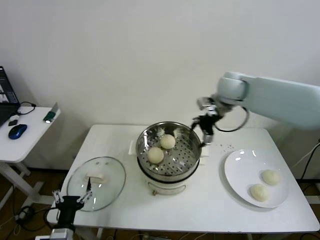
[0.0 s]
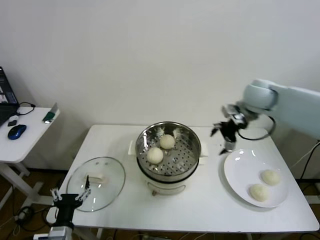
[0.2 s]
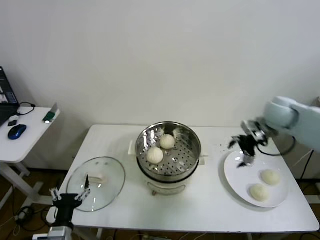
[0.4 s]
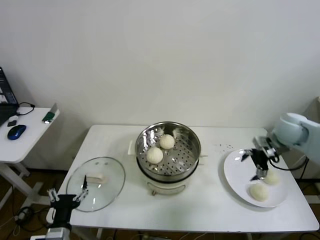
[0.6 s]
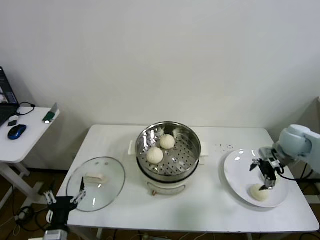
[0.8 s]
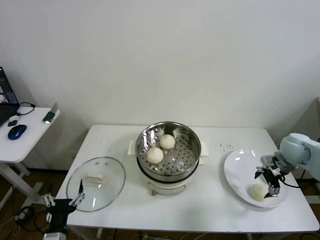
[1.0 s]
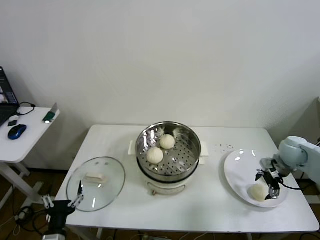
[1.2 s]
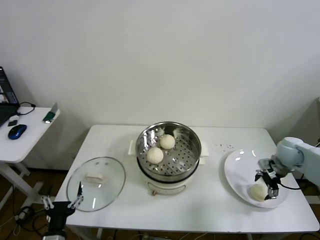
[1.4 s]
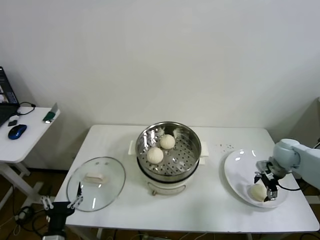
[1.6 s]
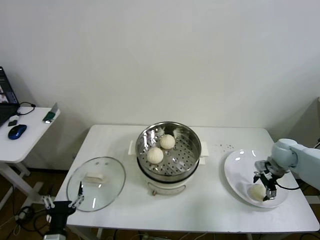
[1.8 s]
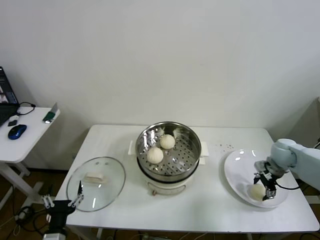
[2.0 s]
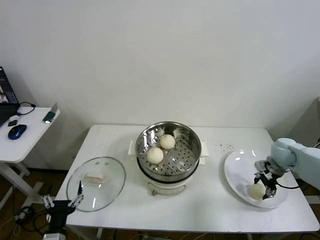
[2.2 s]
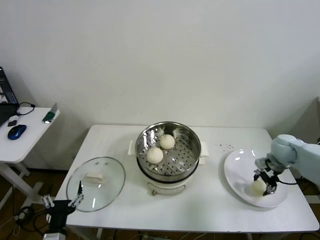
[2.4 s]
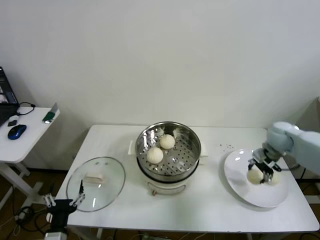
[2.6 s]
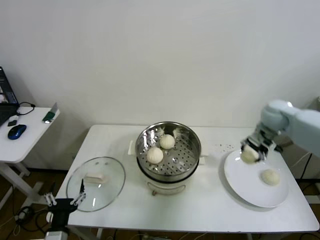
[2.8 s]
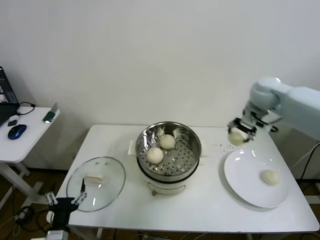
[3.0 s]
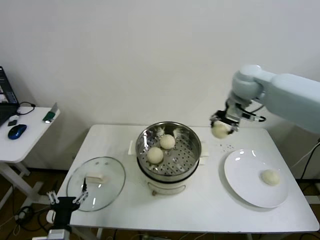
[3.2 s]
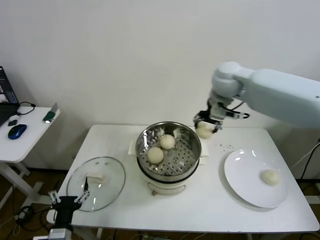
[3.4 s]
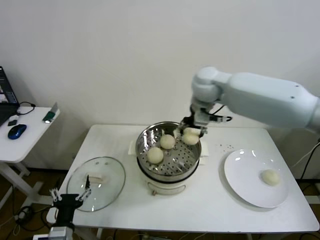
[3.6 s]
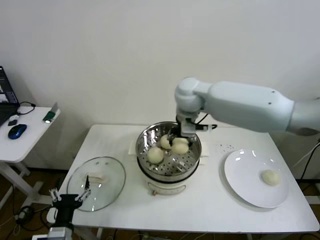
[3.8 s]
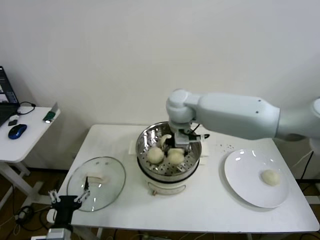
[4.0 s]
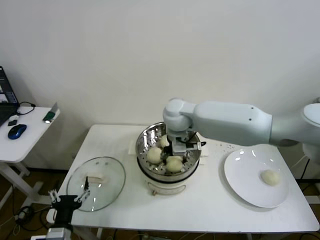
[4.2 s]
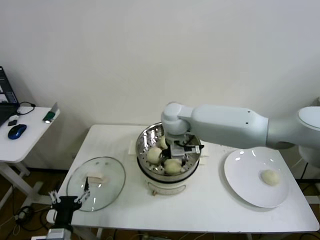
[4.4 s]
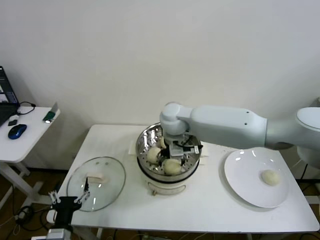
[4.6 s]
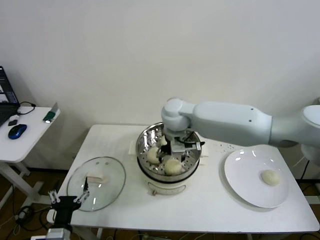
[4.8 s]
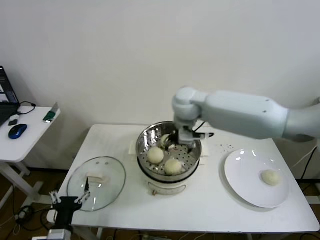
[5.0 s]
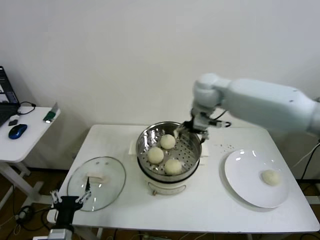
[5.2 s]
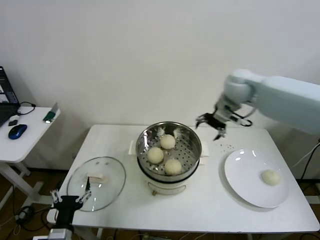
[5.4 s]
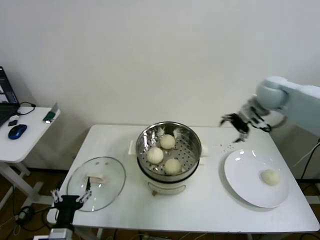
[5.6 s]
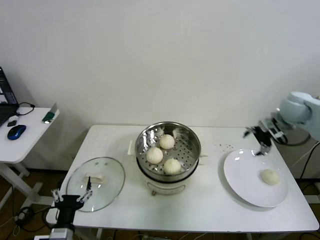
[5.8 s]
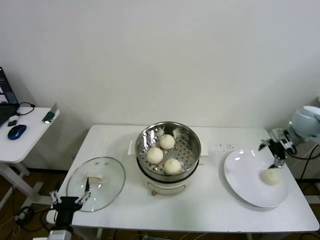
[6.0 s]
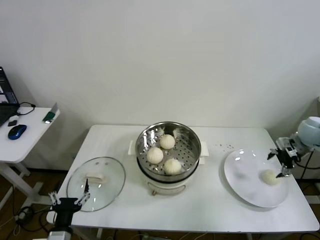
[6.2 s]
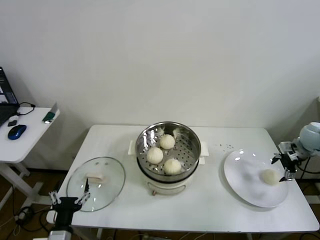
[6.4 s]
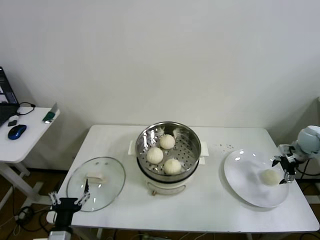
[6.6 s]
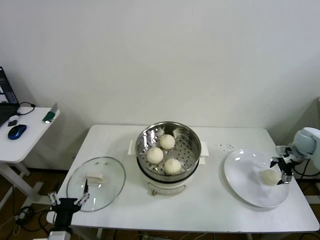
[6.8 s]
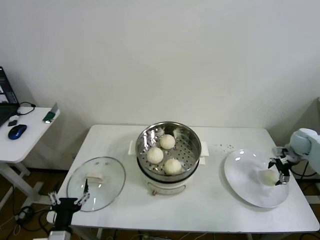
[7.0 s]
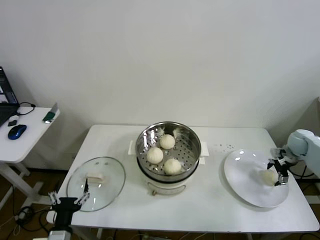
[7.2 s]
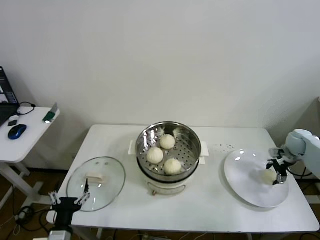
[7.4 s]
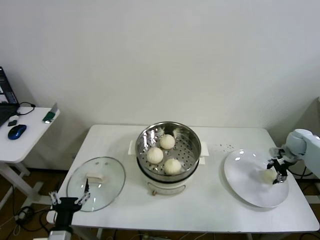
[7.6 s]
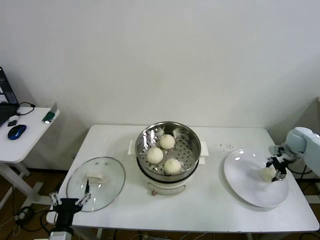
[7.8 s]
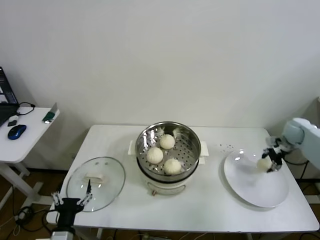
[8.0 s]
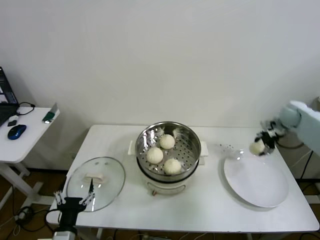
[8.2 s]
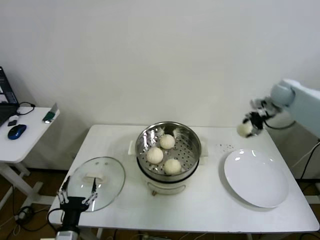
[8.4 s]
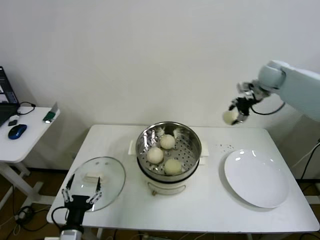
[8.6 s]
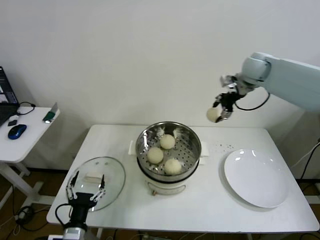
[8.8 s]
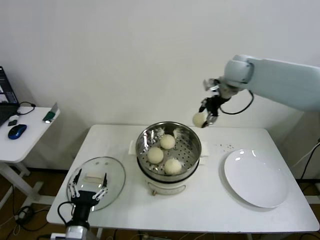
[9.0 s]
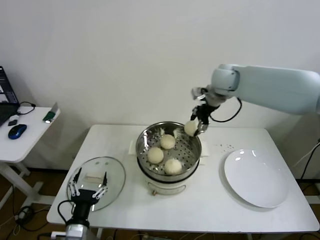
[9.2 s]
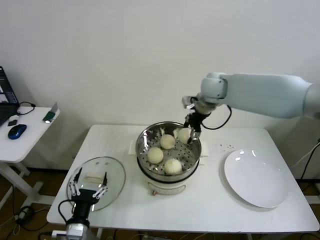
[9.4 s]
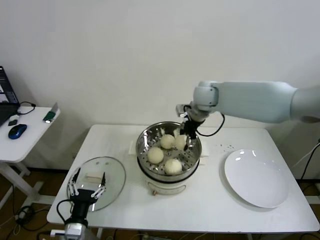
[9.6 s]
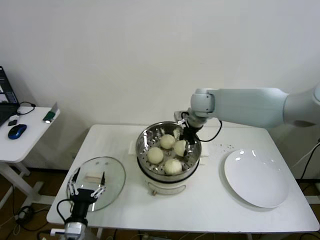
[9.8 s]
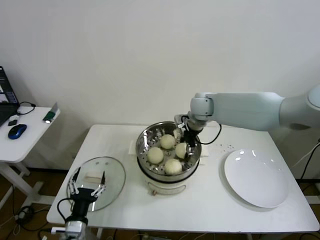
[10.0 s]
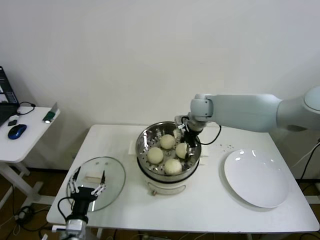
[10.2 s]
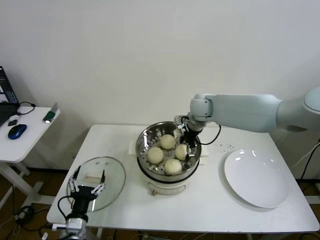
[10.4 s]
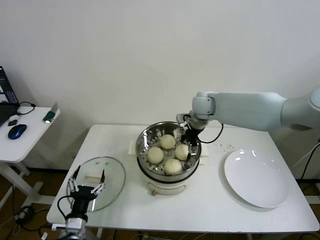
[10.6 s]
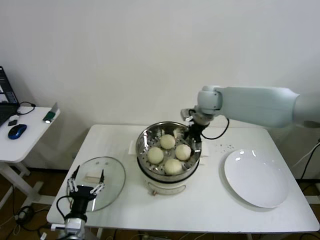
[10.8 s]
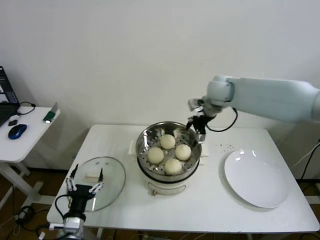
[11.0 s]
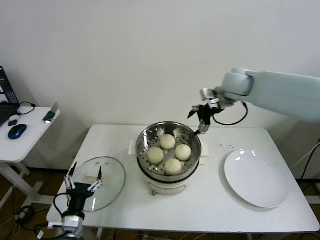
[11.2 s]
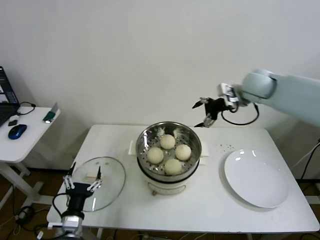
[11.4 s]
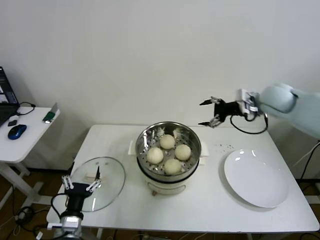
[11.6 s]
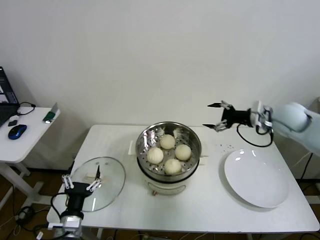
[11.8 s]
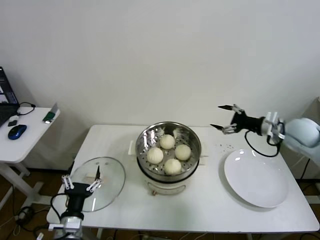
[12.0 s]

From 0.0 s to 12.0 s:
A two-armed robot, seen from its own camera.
Step, from 0.0 s to 2.2 s: Grasp the baozi in the plate with right gripper.
Step, from 2.4 s to 4.8 s: Place the baozi on the steamer with right gripper.
Step, from 5.2 s to 7.4 s: Grasp the baozi in the plate with right gripper.
Step, from 7.8 s to 10.6 s: Place the baozi on the steamer with right gripper.
From 0.0 s to 1.6 s: The right gripper travels downward, to the right and backward by approximately 30 cm.
From 1.6 s to 3.0 s: The right gripper heads upward, to the left and forward, covering about 25 cm, and closes up.
From 3.0 s to 4.4 s: The right gripper is displaced to the left by about 25 cm, and opens its fingers.
From 4.4 s to 6.0 s: The right gripper is displaced to the right by some 40 cm.
From 6.0 s to 7.6 s: The right gripper travels downward and to the right by approximately 15 cm, and closes its fingers.
From 7.6 s to 9.0 s: The right gripper moves to the left and upward, approximately 40 cm.
From 9.0 s to 10.4 s: The right gripper is displaced downward and to the left by about 15 cm, and opens its fingers.
From 10.4 s to 12.0 s: The right gripper goes about 30 cm to the right and backward.

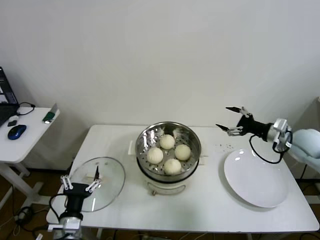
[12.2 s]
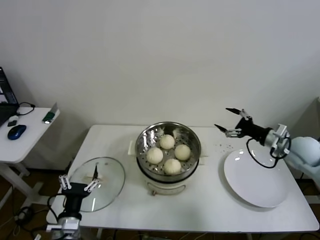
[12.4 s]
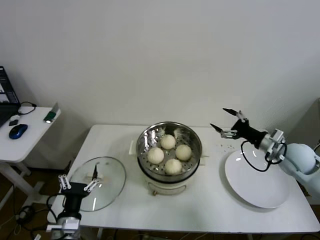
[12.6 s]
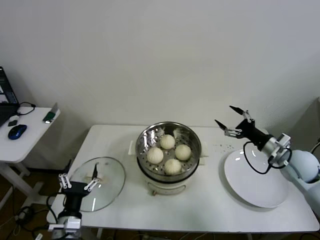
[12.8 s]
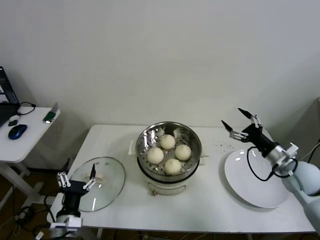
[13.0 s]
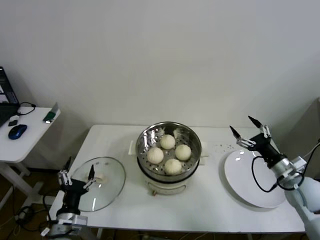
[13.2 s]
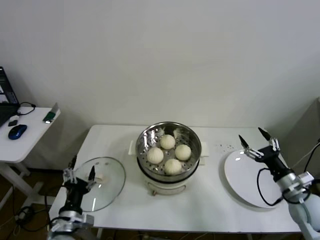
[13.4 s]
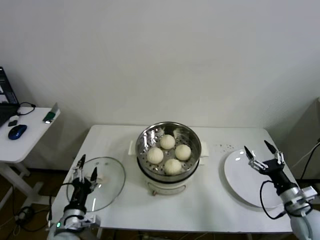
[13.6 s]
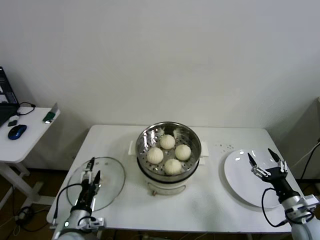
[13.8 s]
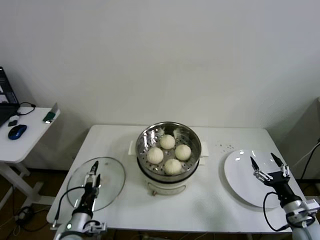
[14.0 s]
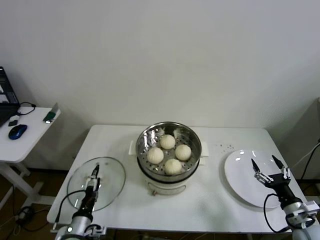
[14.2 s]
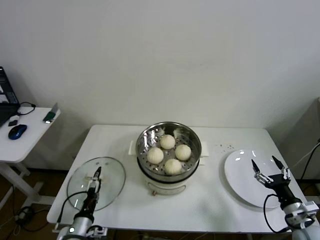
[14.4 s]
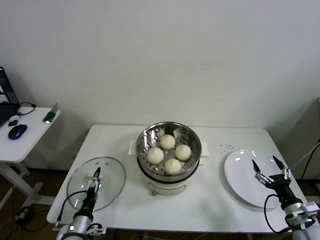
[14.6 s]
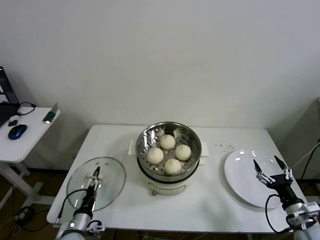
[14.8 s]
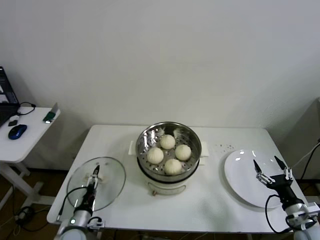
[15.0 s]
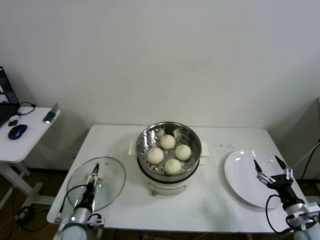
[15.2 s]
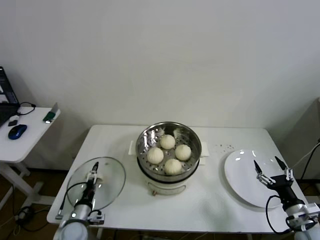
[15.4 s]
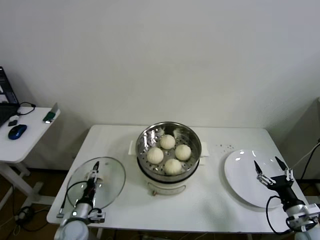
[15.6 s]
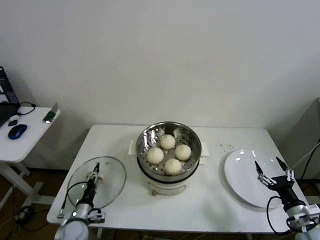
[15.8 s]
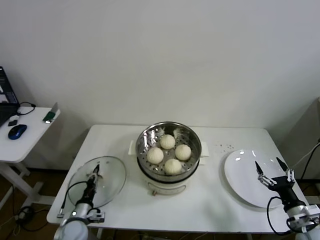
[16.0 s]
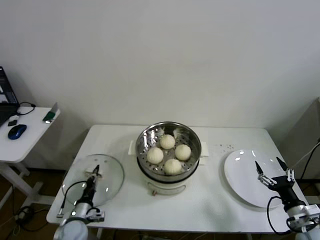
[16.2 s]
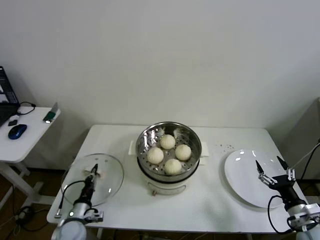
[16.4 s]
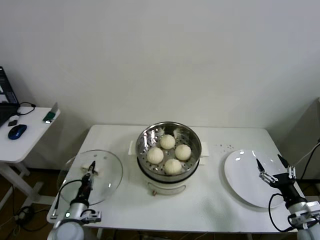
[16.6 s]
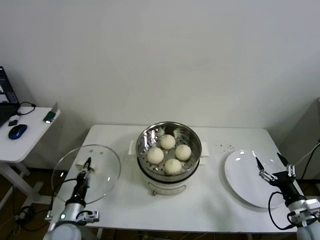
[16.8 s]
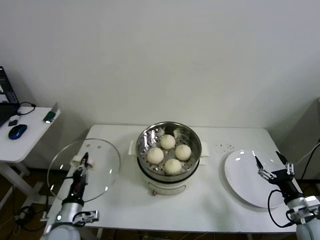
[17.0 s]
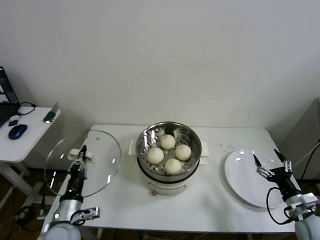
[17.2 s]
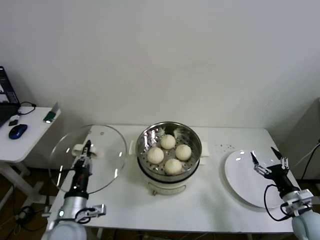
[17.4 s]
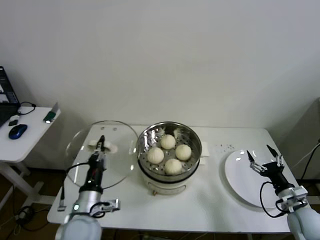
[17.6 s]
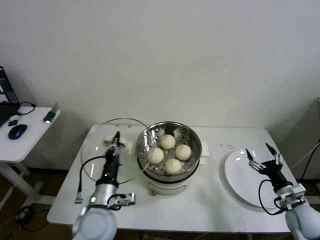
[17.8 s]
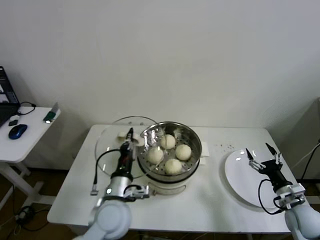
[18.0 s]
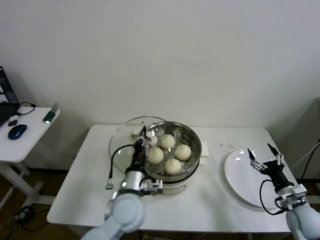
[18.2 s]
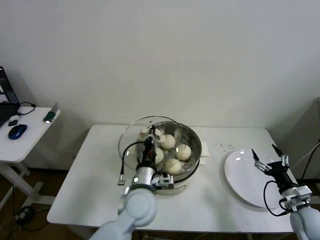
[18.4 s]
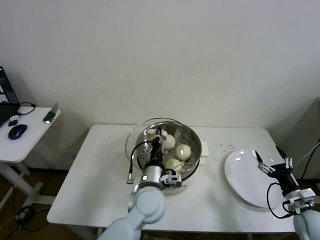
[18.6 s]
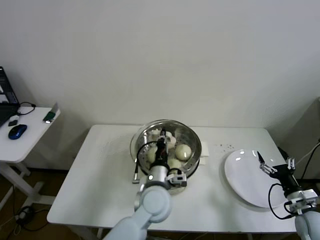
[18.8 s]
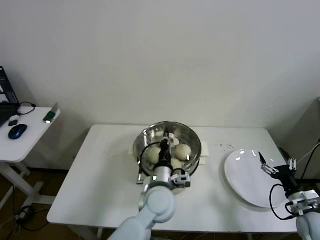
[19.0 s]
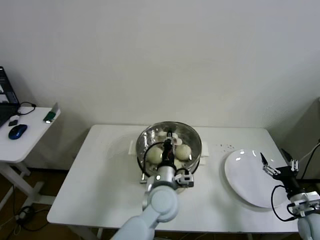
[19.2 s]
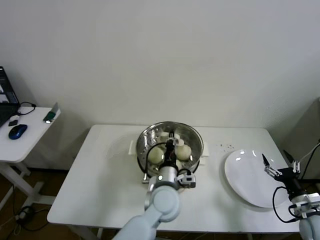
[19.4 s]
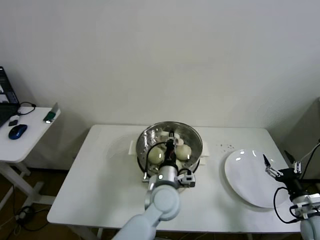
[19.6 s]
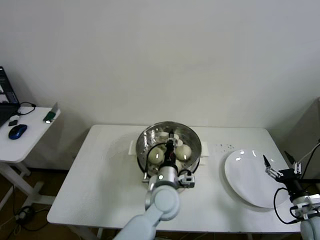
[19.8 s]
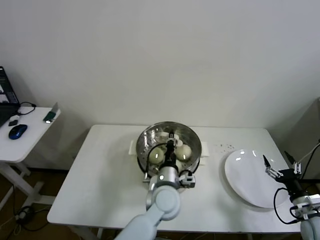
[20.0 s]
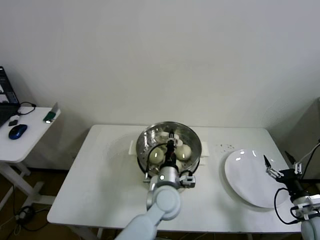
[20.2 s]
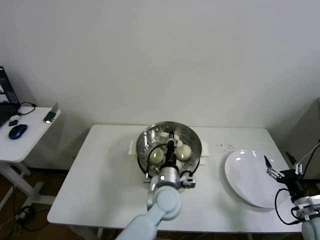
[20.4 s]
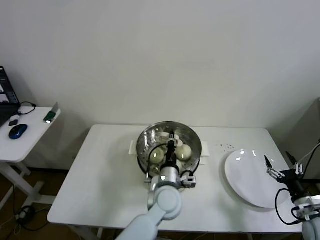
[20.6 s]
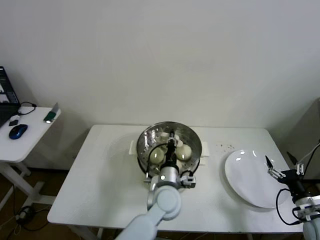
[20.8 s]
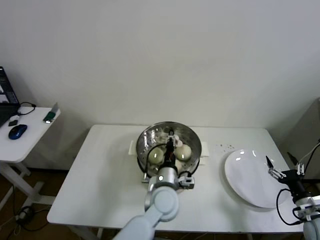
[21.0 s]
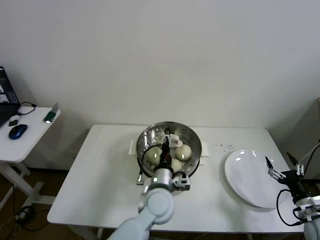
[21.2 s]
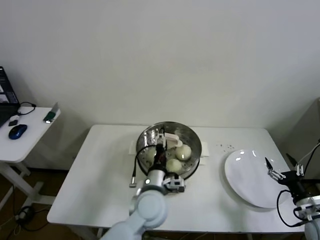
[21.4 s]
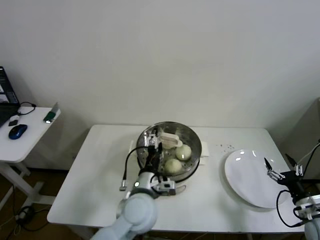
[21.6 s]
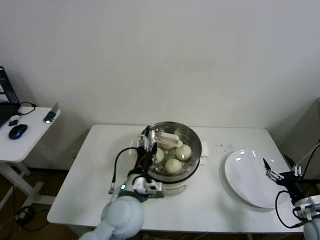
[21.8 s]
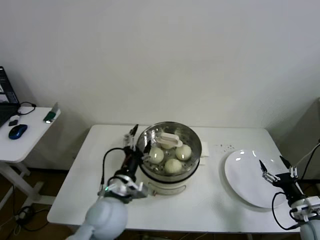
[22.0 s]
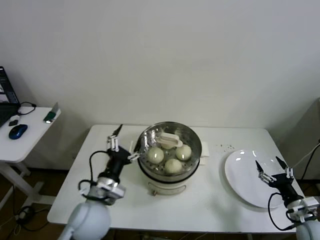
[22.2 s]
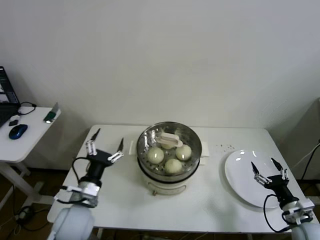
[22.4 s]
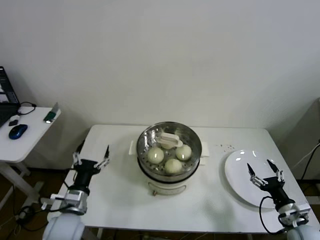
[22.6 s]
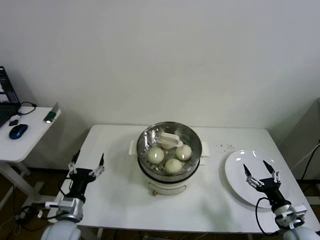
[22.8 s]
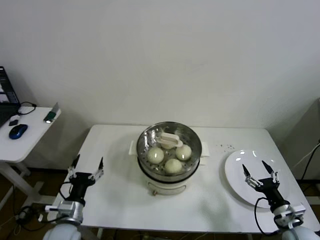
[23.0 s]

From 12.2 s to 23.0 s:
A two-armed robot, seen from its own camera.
Step, from 12.2 s to 16.2 s: Grasp the pot lid with left gripper.
Step, from 16.4 s to 21.4 s: Place the pot lid on the steamer with left gripper.
From 12.2 s to 13.8 s: The right gripper is displaced backward and downward by approximately 25 cm.
From 13.8 s to 15.2 s: The left gripper moves downward, some 10 cm.
From 15.2 s to 16.8 s: The left gripper closes its fingers.
From 16.8 s to 18.4 s: The left gripper goes some 30 cm to the right and upward.
From 18.4 s to 20.0 s: The left gripper travels to the right by roughly 10 cm.
From 20.0 s to 21.4 s: The left gripper opens its fingers.
From 21.4 s to 23.0 s: The left gripper shifts some 25 cm to the left, while the right gripper is displaced to the left by approximately 5 cm.
